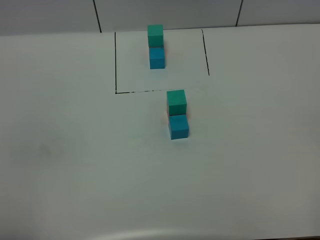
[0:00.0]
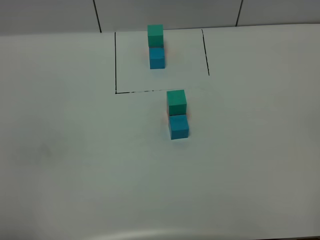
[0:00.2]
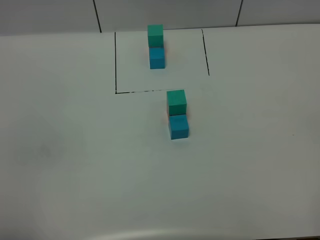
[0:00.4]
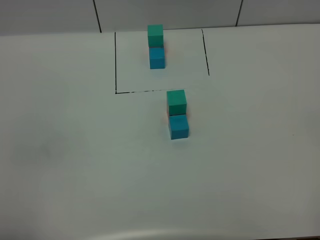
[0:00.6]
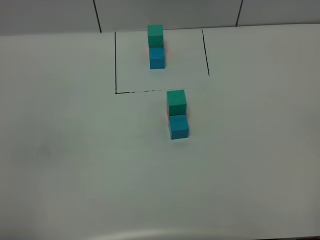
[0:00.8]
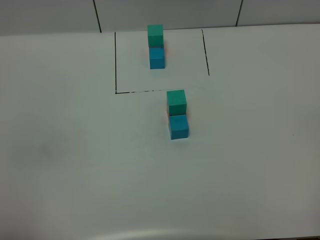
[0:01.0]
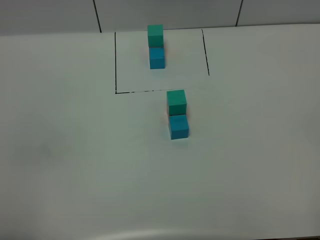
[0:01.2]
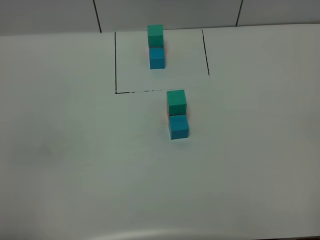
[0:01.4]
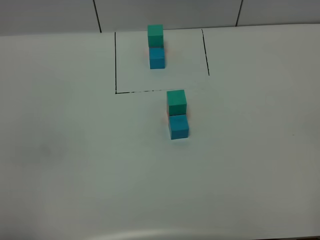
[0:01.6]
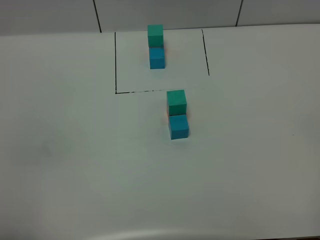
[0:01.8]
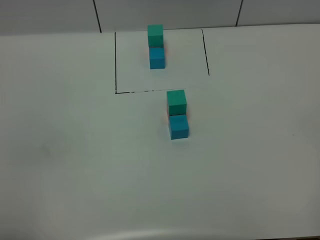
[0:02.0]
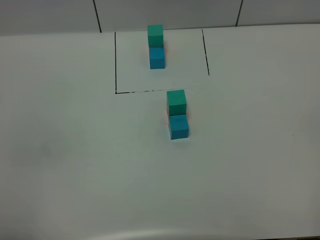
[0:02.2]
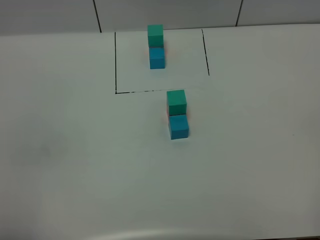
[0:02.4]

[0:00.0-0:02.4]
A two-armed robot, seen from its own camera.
Task of the whole recording: According to the building block template in front, assemble the scattered blocks together.
0:00.0 to 0:02.4: Both grippers stay about where they are.

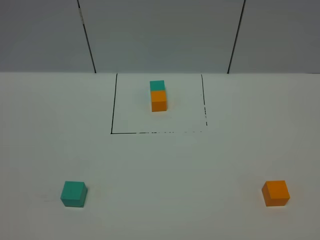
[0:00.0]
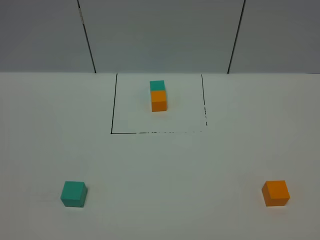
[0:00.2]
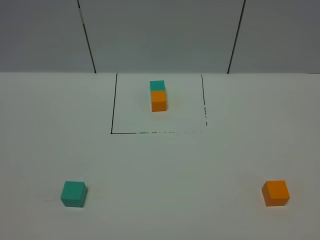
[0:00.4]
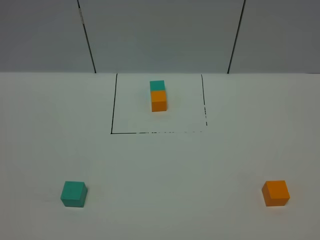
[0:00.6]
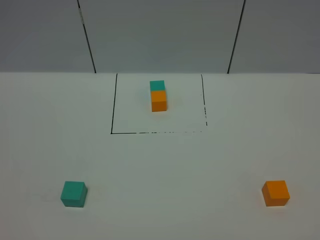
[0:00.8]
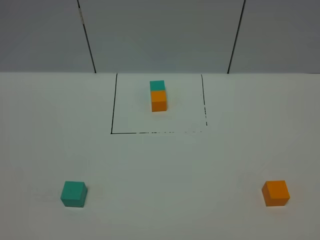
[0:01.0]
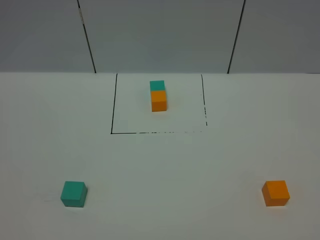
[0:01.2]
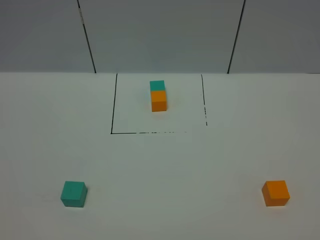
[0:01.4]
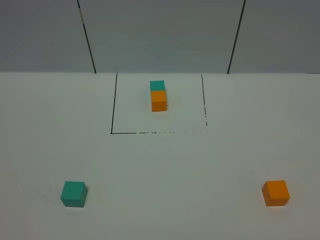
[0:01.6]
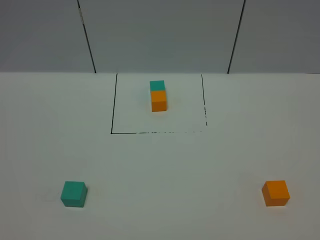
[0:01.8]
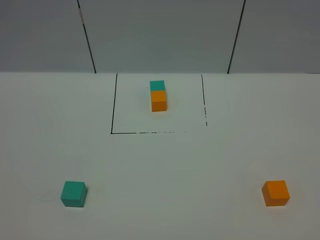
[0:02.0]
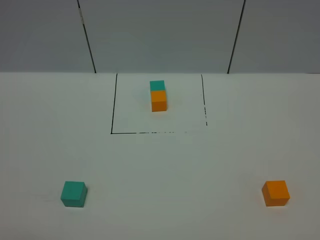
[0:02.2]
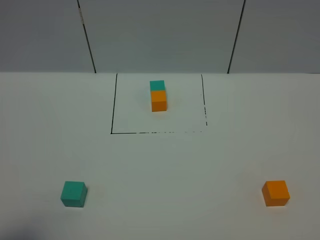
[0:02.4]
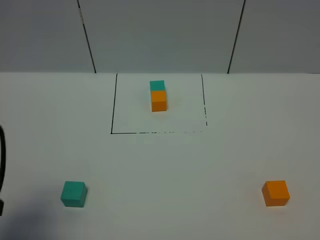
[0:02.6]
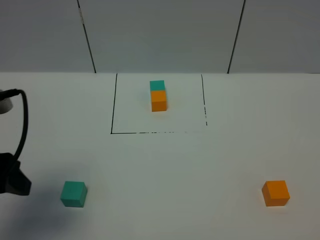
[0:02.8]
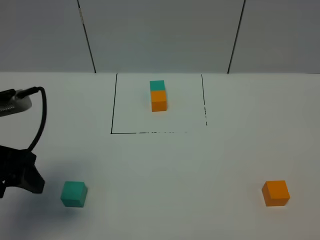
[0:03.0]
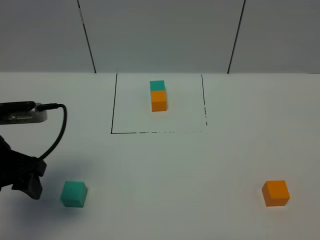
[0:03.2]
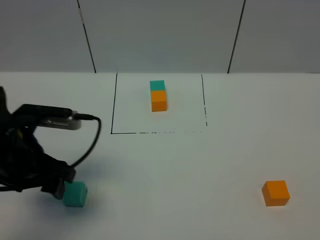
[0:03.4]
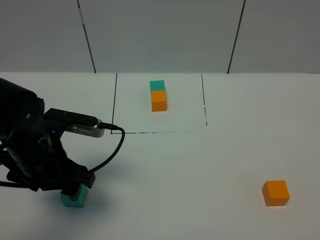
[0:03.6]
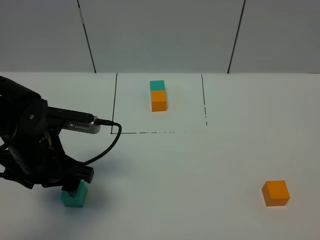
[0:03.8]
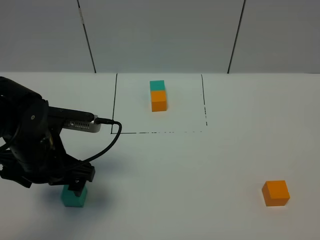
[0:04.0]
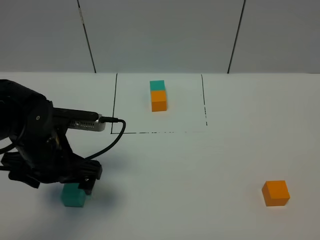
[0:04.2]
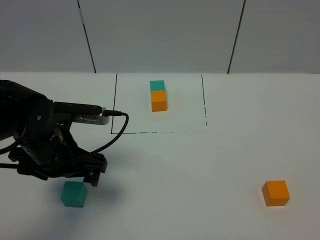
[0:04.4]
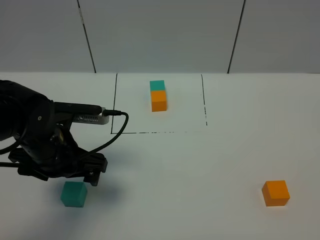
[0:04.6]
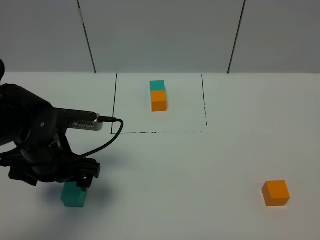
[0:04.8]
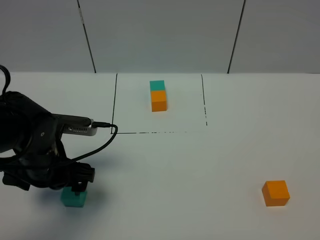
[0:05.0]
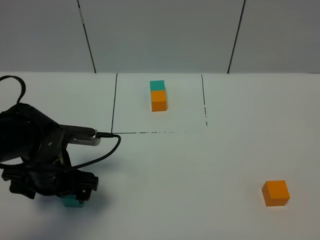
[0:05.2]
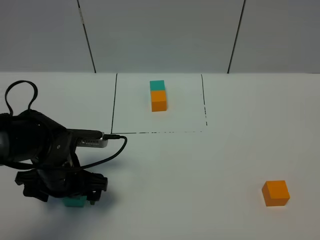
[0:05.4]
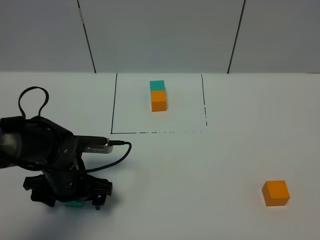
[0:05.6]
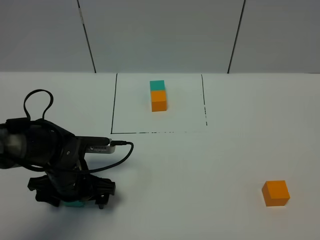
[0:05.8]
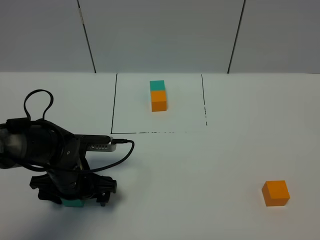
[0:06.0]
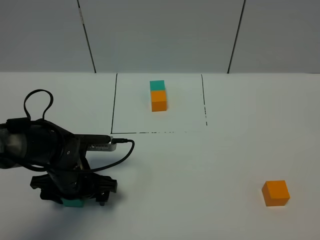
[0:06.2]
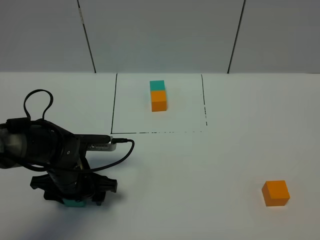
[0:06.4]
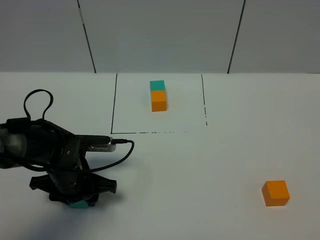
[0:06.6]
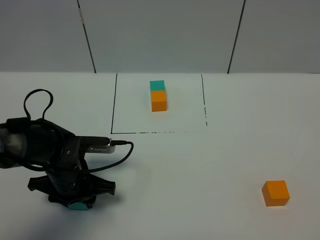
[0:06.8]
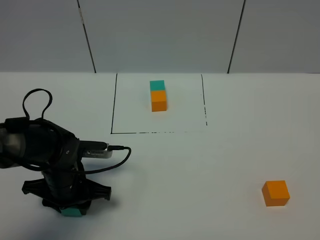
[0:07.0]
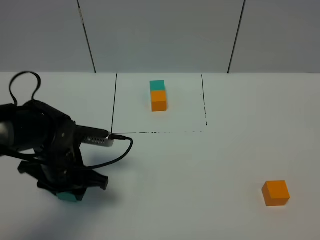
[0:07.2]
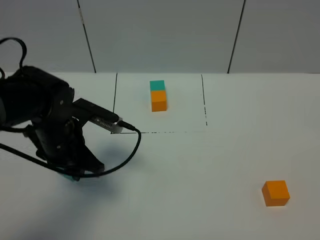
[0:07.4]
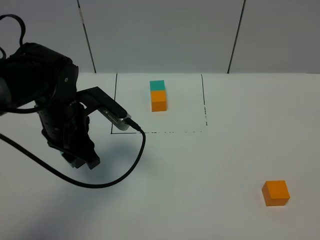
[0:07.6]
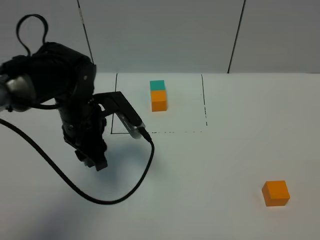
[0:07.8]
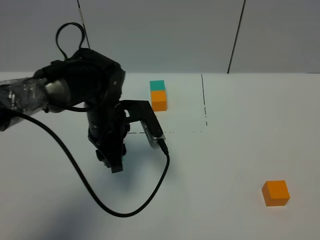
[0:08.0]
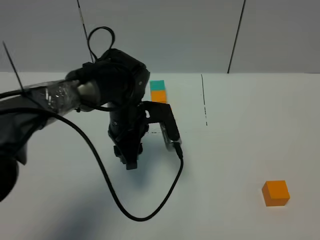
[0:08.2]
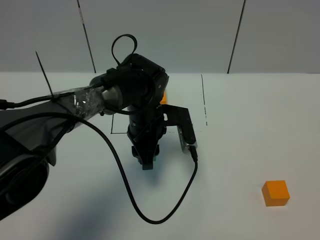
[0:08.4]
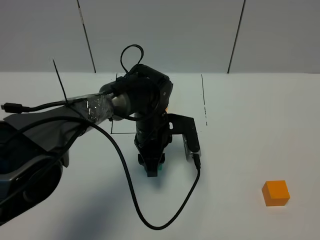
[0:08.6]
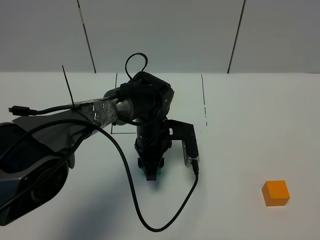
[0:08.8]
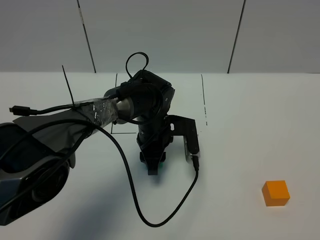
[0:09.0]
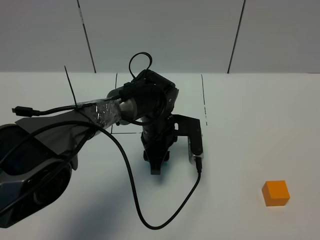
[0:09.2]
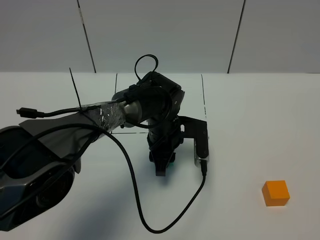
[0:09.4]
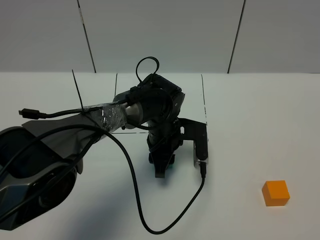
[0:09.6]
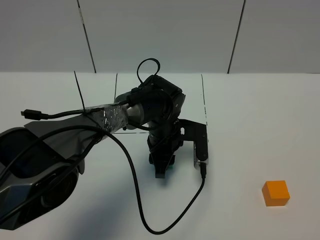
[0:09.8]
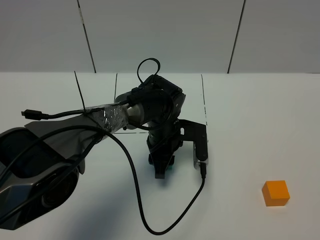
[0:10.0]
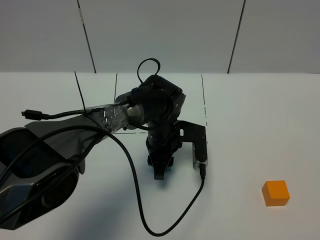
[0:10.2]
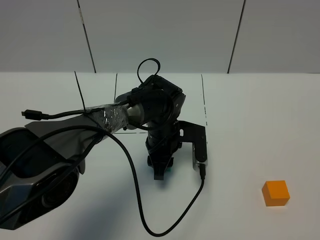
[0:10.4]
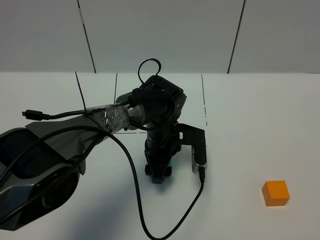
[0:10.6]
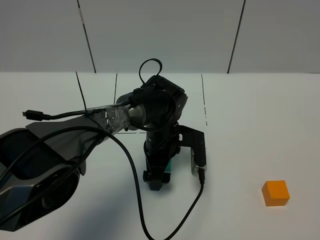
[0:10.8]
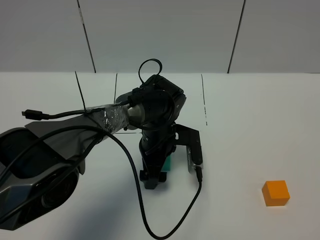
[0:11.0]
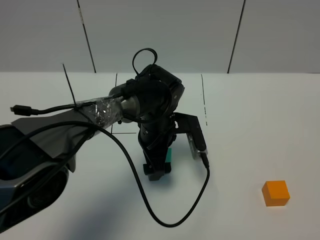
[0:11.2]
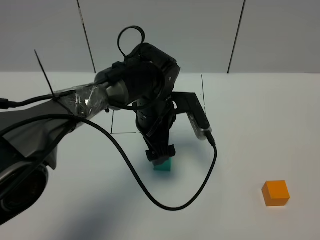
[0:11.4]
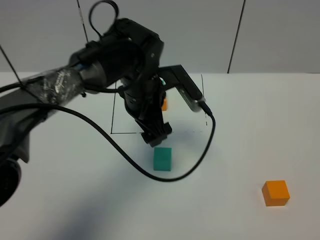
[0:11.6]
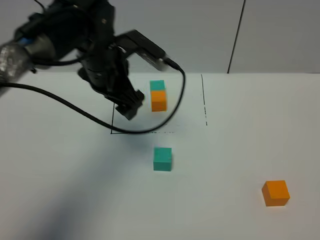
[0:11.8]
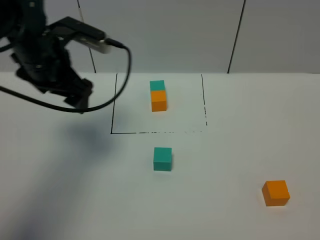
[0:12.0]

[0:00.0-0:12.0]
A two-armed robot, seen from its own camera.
Task of the whole recording: According to the building block template in front, assemble the scattered blocks together.
Step, 0:01.8 to 0:10.6: Put the green cube in the center of the table.
0:00.0 to 0:01.6: Both grippers stay put.
0:01.6 to 0:03.0: The left gripper is displaced forward by approximately 25 cm.
0:03.0 to 0:04.4: The left gripper travels to the right, downward and forward by about 15 cm, and opens up.
0:04.4 to 0:06.0: The left gripper shifts some 10 cm downward.
0:06.0 to 0:07.6: The left gripper heads upward, covering about 10 cm, and closes.
0:07.6 to 0:09.0: The left gripper shifts roughly 20 cm to the right, downward and forward.
0:09.0 to 0:10.4: The grippers stay close to where they were, moving slightly.
0:10.4 to 0:12.0: The left gripper is displaced to the left and upward by some 30 cm, and opens its fingers.

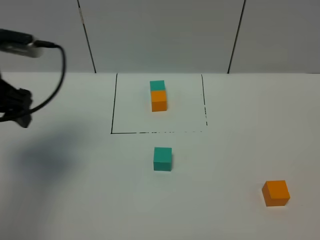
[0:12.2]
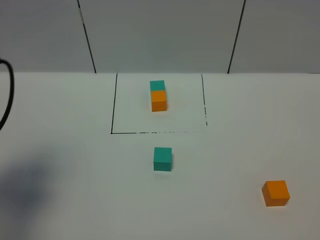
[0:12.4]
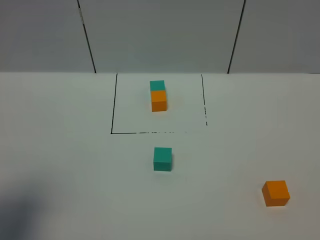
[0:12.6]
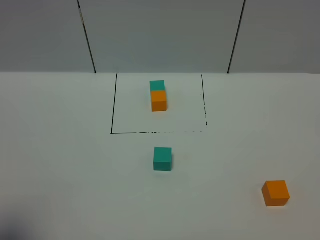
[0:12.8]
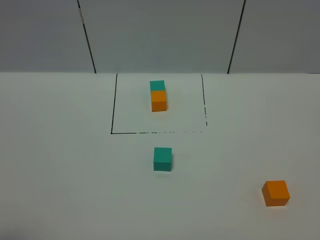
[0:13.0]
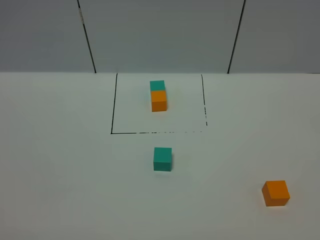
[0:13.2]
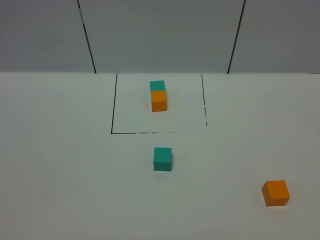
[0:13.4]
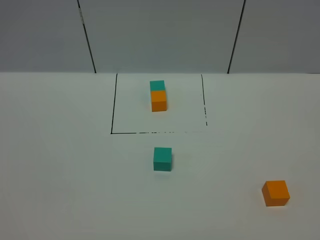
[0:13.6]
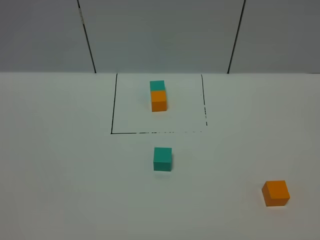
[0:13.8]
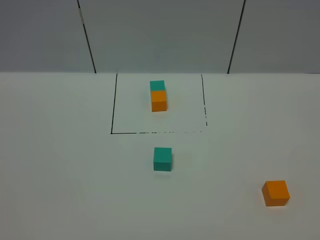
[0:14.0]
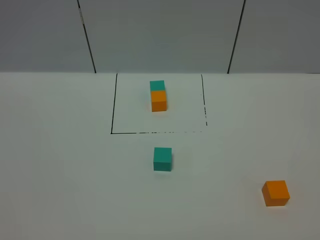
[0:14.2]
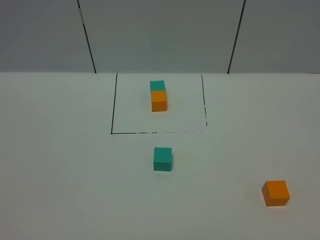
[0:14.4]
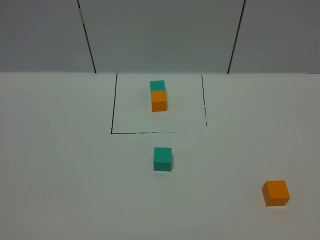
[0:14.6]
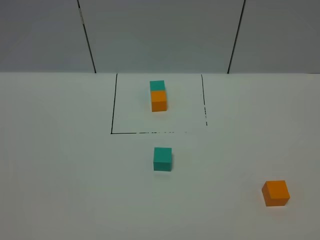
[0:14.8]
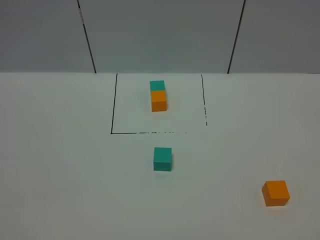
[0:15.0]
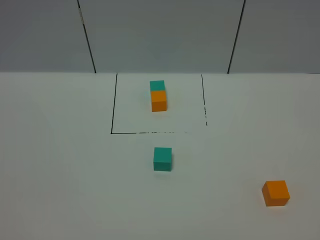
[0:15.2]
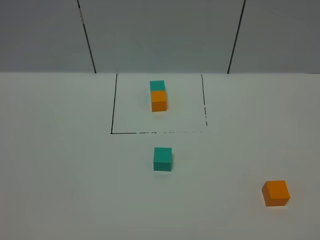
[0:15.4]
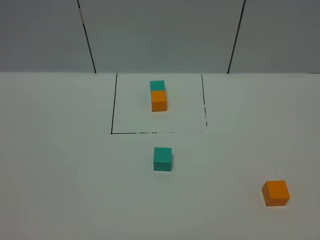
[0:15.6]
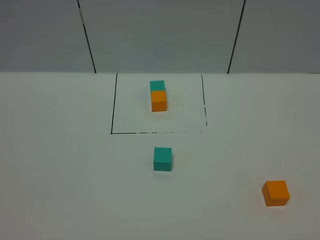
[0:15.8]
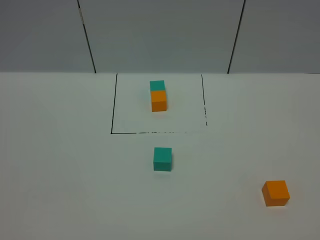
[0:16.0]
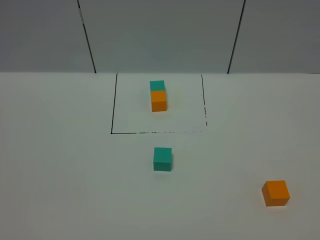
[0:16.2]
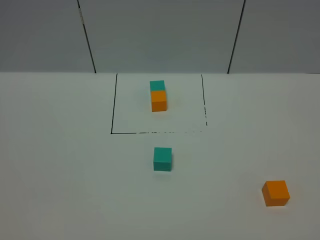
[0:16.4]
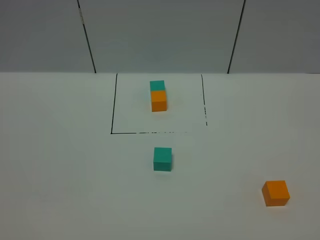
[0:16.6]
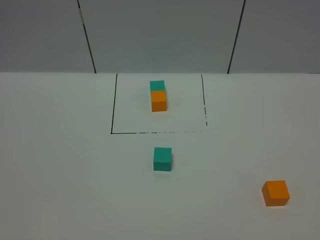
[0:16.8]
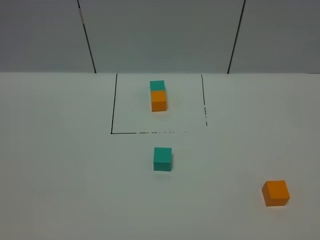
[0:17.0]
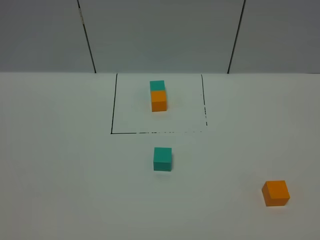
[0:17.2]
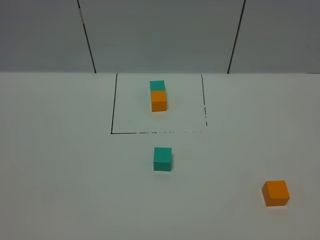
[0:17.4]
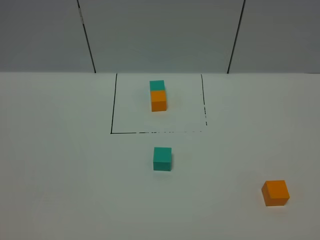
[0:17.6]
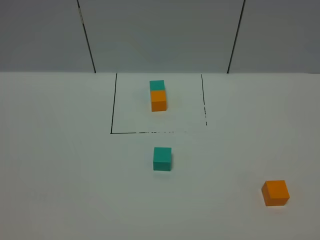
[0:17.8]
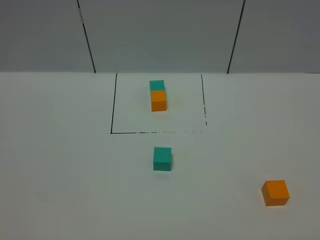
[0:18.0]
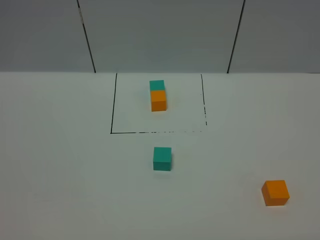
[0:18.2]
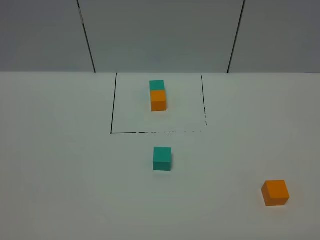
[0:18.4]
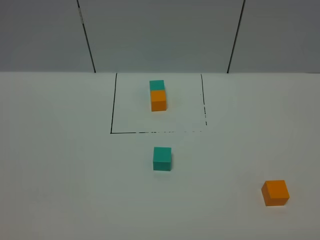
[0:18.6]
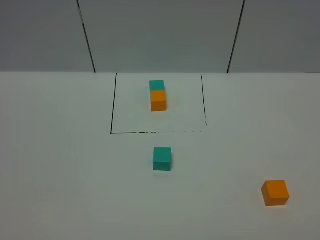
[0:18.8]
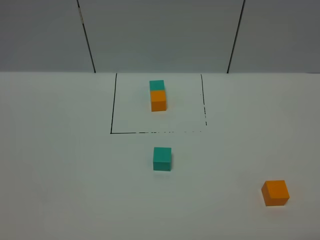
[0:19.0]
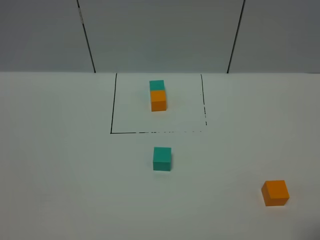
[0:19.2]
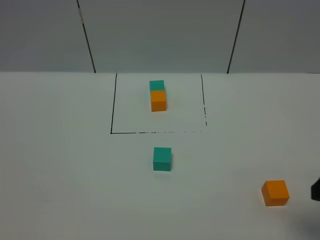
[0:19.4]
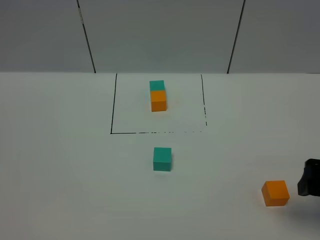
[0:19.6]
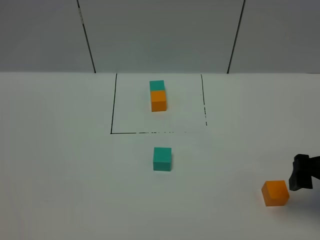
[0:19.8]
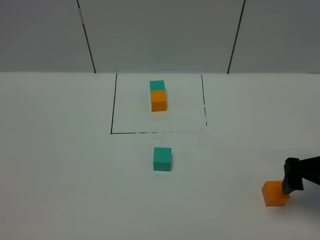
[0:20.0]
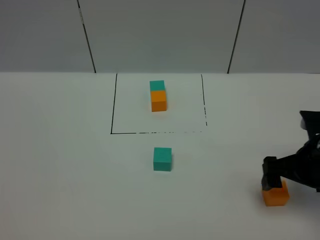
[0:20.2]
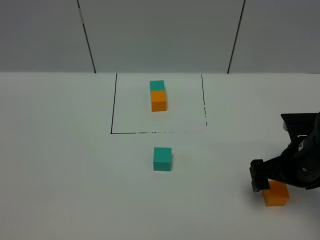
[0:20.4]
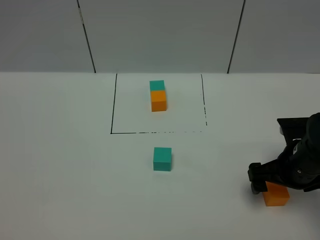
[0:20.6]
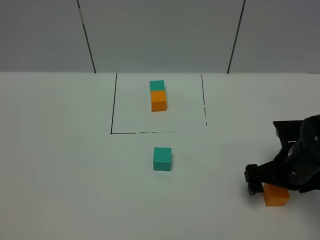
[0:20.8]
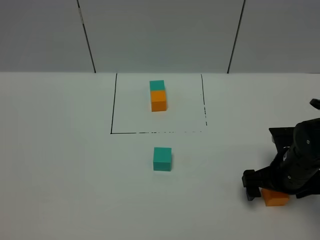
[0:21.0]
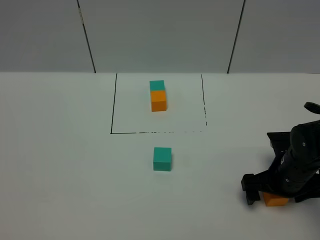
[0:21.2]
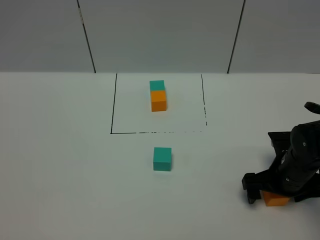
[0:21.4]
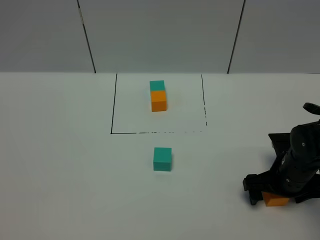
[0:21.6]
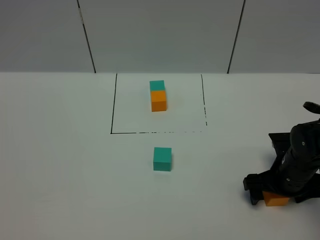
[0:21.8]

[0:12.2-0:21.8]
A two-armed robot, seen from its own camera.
Task of the whole recording: According to the building block template in front, assemble the scattered blocks together.
0:12.2 to 0:13.8: The left gripper goes roughly 30 cm backward.
0:15.4 to 0:17.0: Both grippers stay put.
0:18.6 to 0:20.2: The right gripper is displaced forward by roughly 25 cm.
0:20.2 to 0:21.8: The right gripper moves downward, roughly 10 cm.
